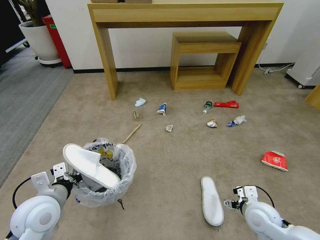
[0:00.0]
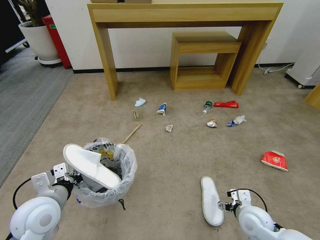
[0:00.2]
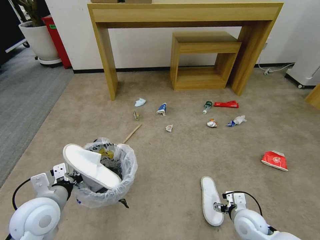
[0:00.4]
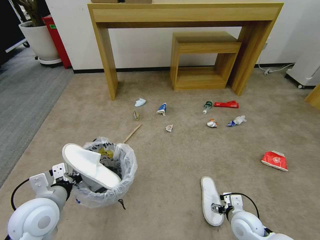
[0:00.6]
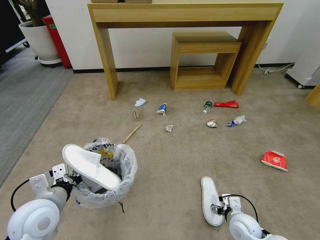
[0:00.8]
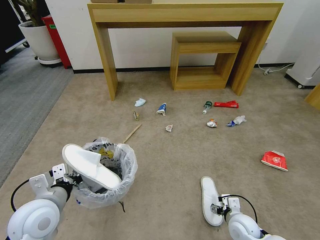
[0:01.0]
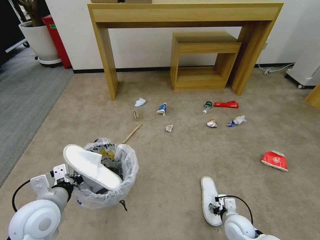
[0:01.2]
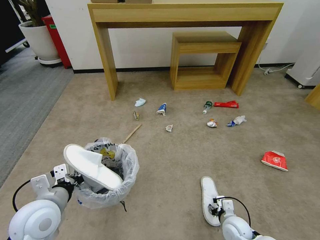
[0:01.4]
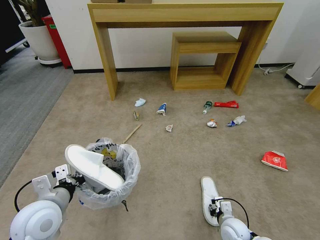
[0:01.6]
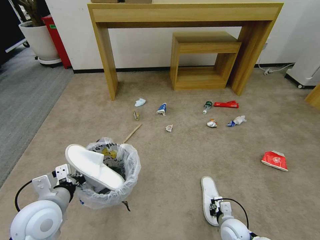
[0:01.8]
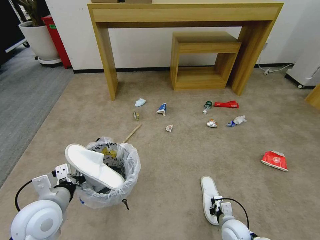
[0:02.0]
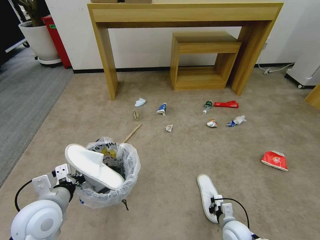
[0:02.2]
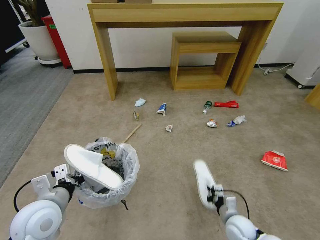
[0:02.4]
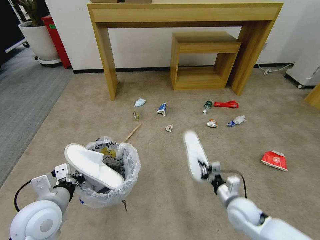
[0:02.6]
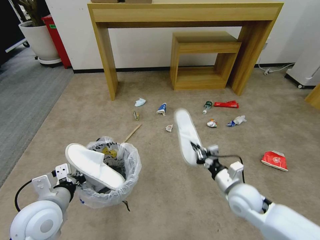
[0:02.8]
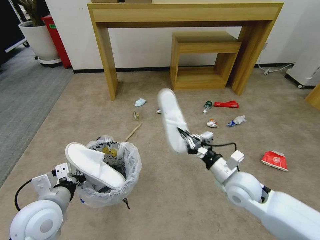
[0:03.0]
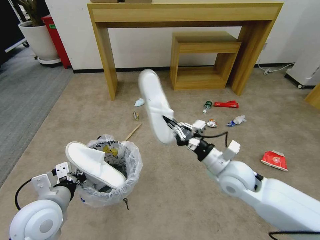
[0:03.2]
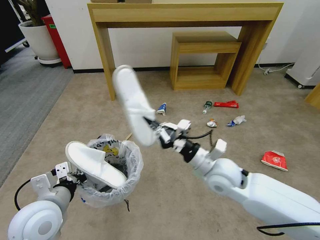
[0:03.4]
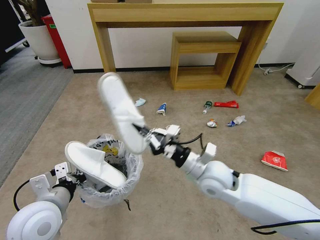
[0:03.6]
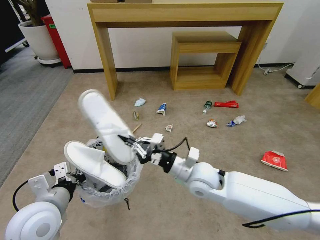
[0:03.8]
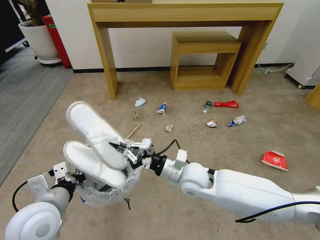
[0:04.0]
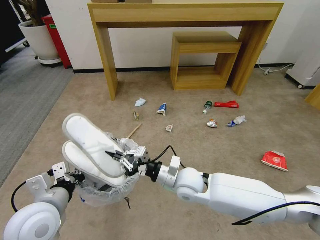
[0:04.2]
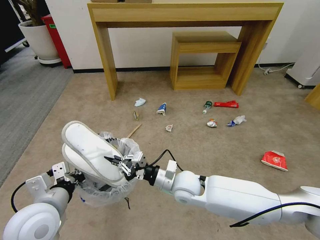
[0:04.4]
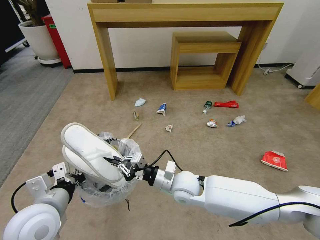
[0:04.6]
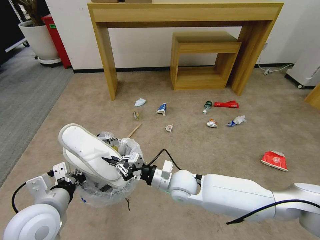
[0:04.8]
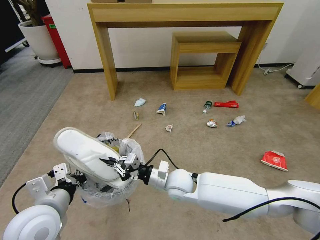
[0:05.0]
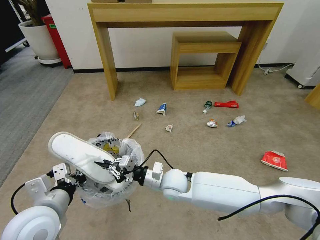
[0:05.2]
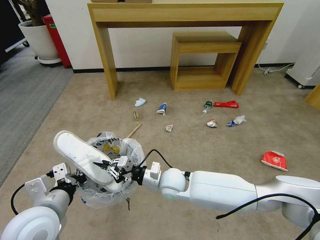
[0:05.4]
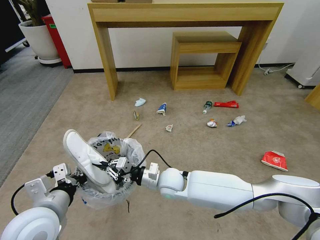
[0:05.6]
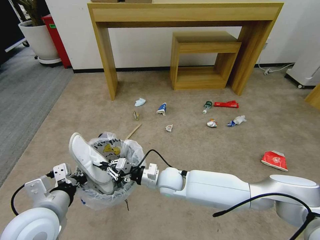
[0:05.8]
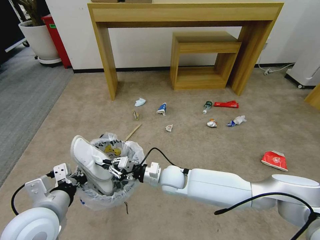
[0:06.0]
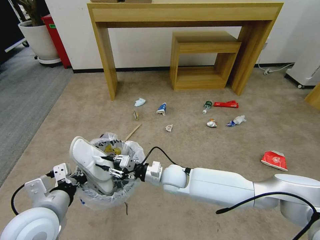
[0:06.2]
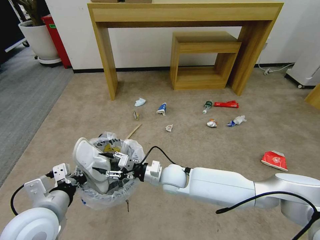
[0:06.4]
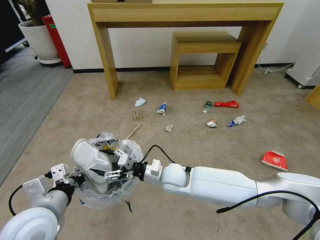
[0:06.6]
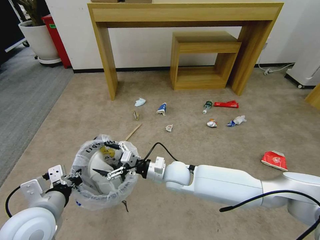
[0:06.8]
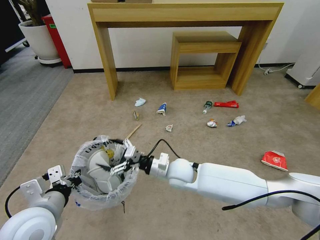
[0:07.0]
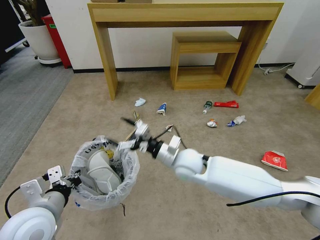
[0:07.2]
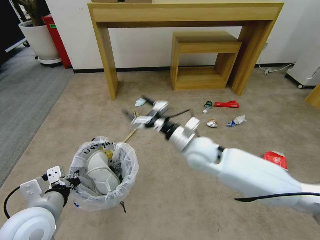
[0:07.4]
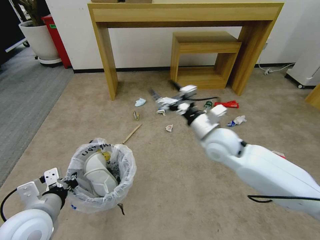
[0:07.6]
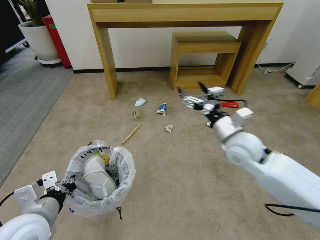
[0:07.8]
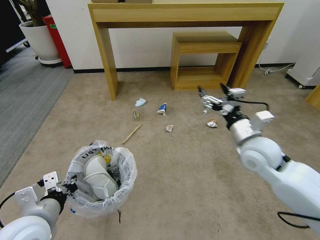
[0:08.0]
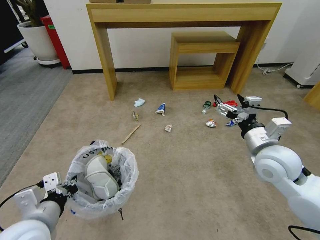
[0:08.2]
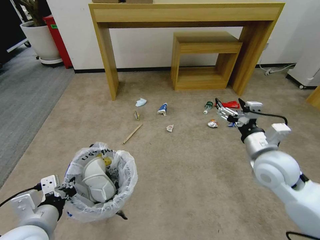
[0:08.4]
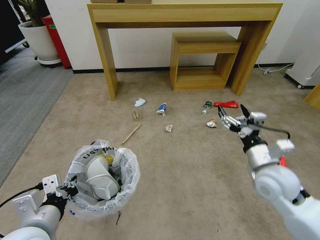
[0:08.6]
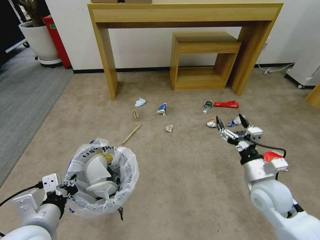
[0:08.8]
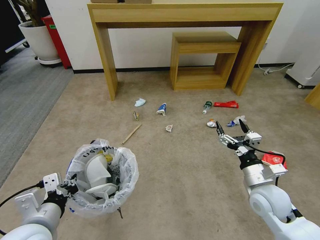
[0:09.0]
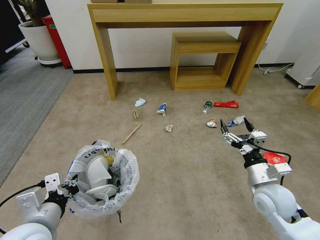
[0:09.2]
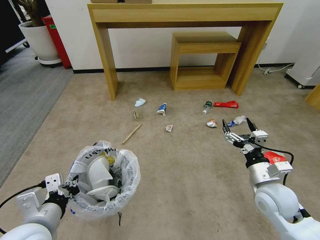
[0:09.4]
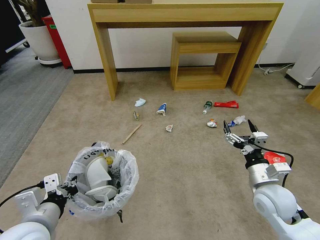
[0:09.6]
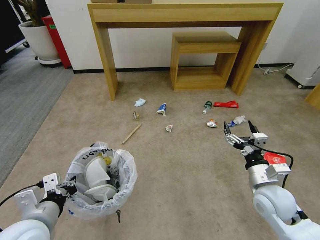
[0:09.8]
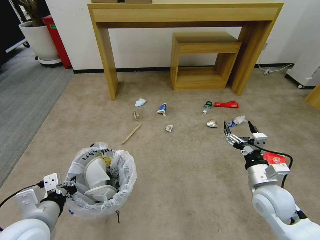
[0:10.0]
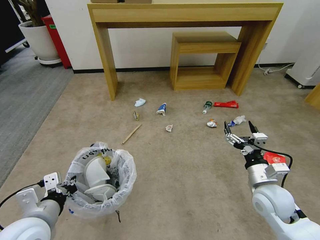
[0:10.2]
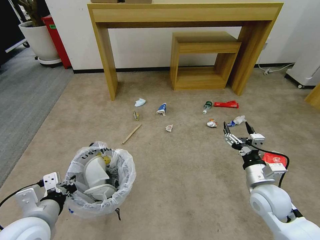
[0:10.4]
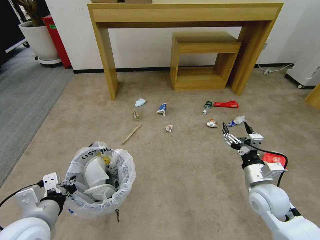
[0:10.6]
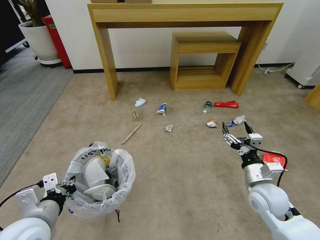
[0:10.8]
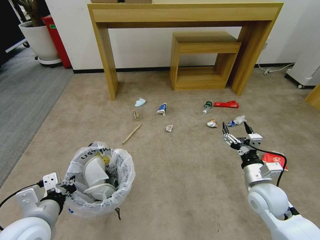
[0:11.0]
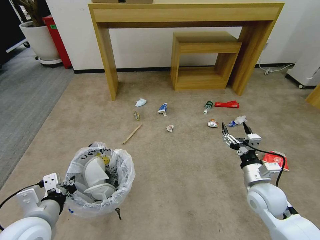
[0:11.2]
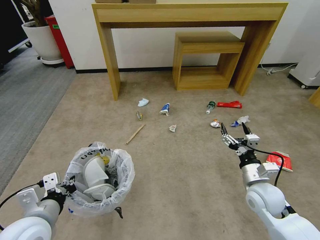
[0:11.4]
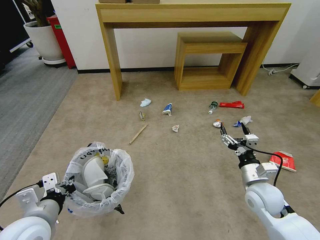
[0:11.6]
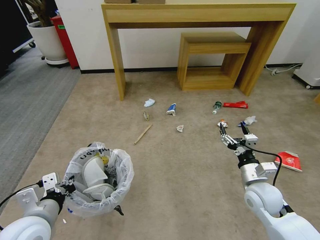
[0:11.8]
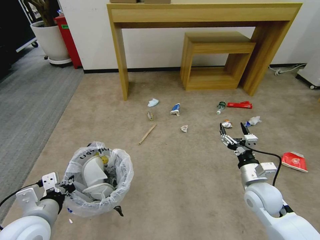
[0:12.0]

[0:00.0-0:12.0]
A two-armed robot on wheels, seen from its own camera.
Task of the whole recording: Pick up the trash bin and place the garbage on the floor into it.
0:00.0 to 0:01.6: The right gripper is displaced downward by about 15 cm, and closes.
0:01.6 to 0:03.0: The right gripper moves upward, approximately 20 cm, and closes.
0:03.0 to 0:04.4: The right gripper goes some 15 cm to the left.
0:04.4 to 0:06.0: The right gripper shifts by about 5 cm.
0:06.0 to 0:07.6: The right gripper is displaced upward and to the right by roughly 25 cm, and opens up.
0:07.6 to 0:09.0: The right gripper moves to the right, backward and downward, approximately 20 cm.
0:09.0 to 0:10.4: There are only small adjustments of the grippers.

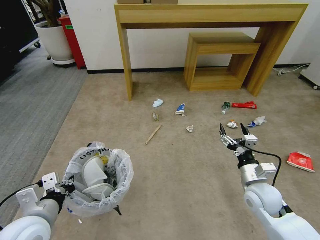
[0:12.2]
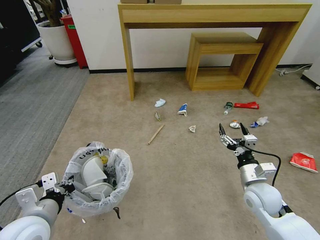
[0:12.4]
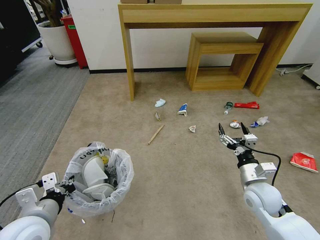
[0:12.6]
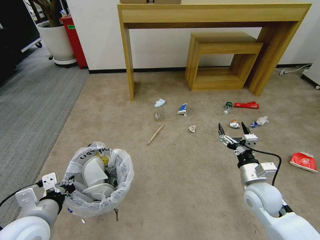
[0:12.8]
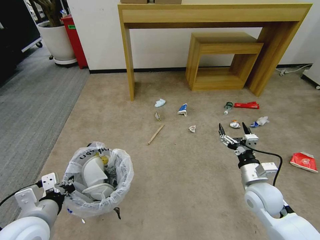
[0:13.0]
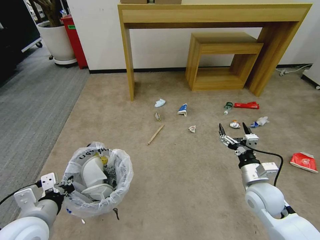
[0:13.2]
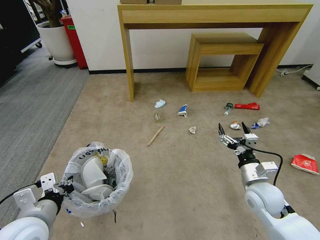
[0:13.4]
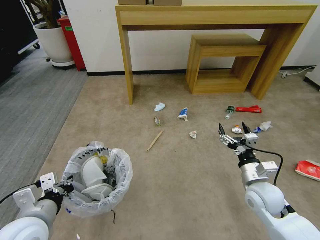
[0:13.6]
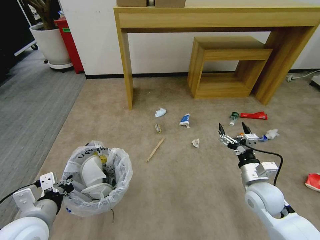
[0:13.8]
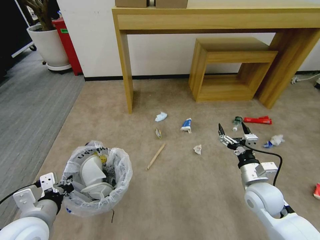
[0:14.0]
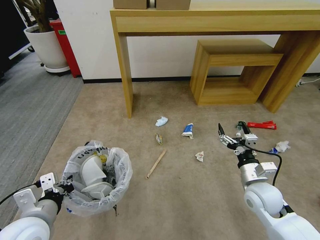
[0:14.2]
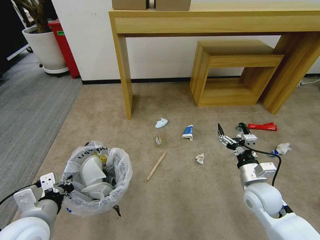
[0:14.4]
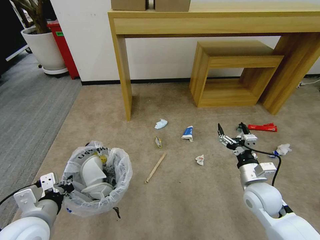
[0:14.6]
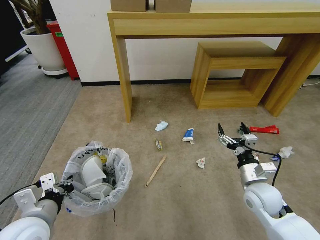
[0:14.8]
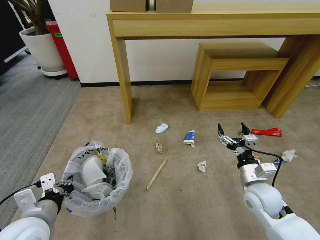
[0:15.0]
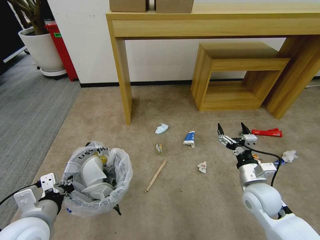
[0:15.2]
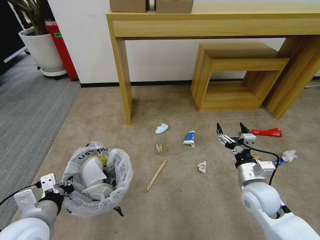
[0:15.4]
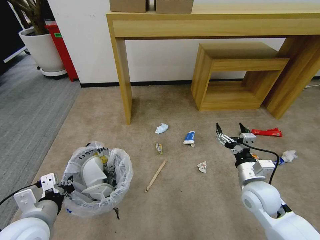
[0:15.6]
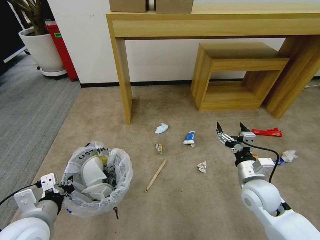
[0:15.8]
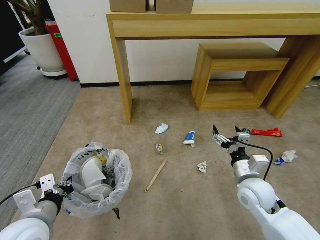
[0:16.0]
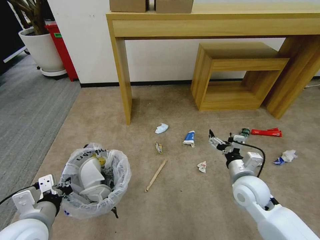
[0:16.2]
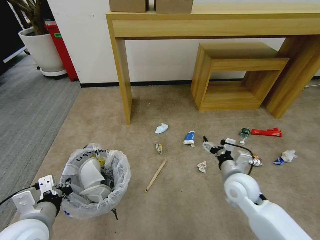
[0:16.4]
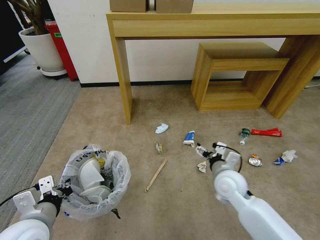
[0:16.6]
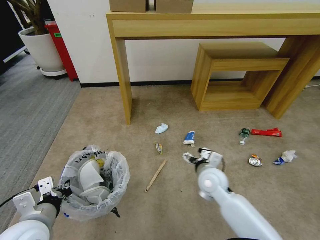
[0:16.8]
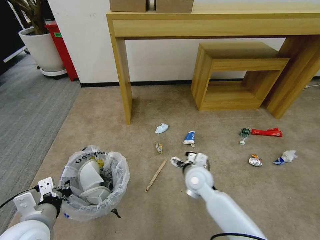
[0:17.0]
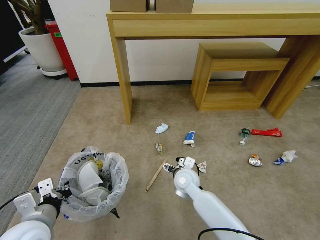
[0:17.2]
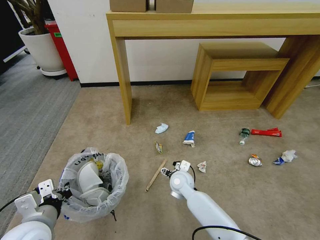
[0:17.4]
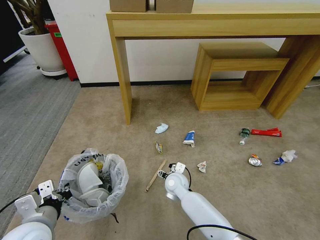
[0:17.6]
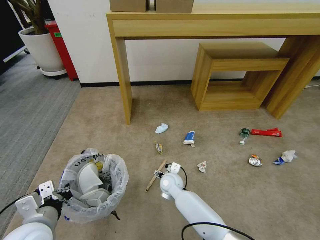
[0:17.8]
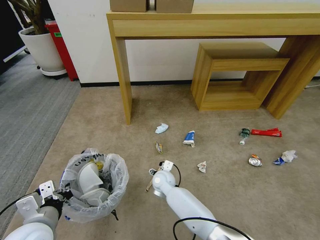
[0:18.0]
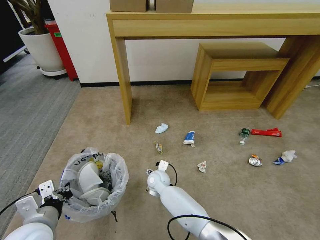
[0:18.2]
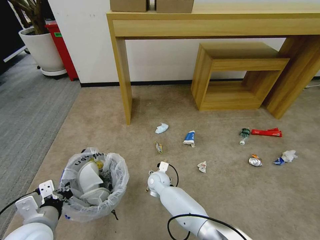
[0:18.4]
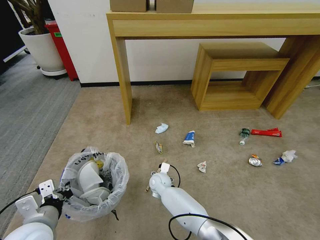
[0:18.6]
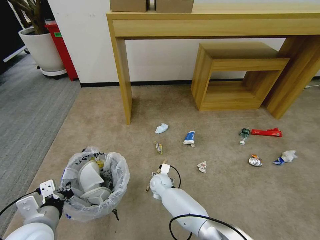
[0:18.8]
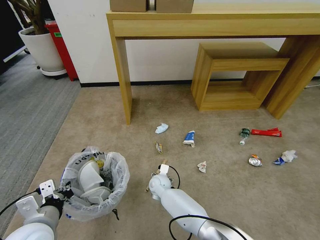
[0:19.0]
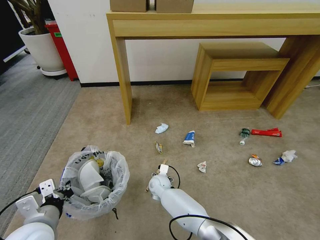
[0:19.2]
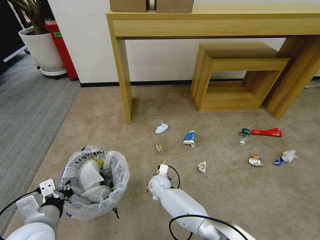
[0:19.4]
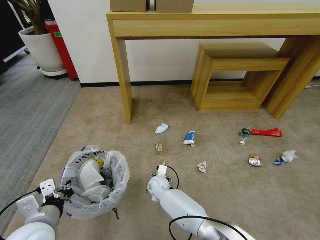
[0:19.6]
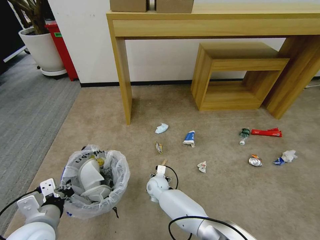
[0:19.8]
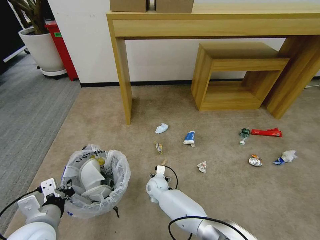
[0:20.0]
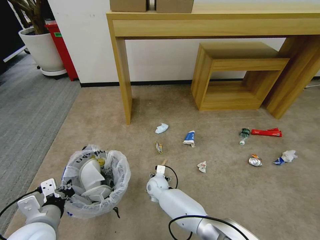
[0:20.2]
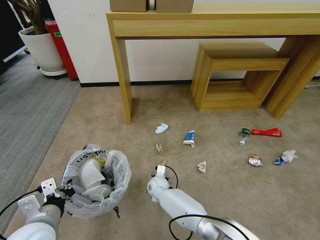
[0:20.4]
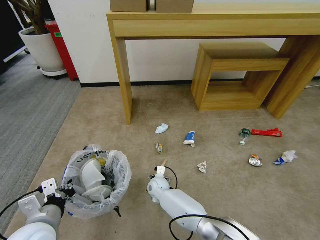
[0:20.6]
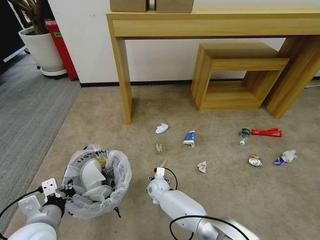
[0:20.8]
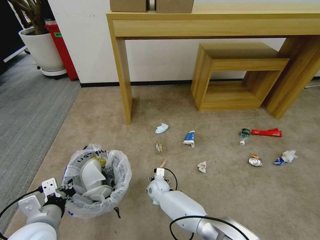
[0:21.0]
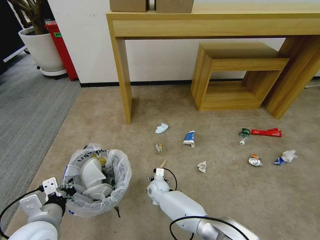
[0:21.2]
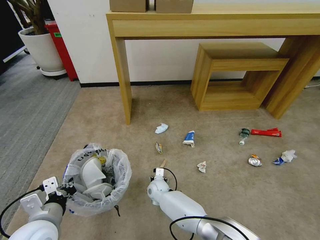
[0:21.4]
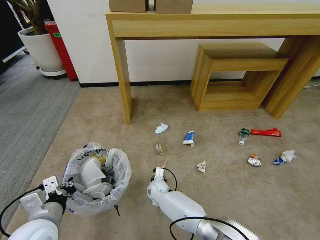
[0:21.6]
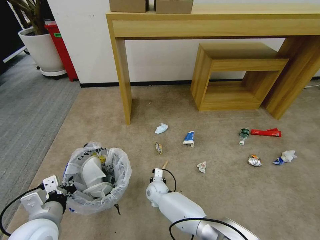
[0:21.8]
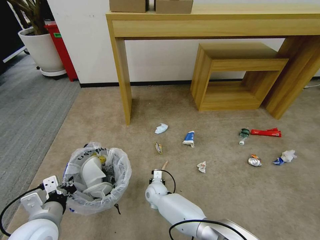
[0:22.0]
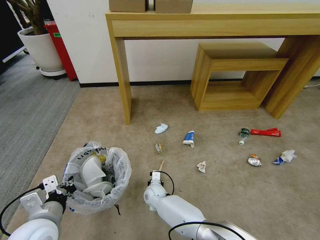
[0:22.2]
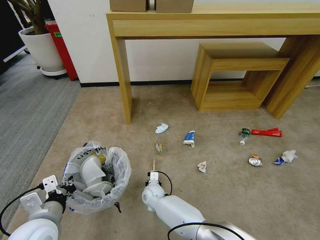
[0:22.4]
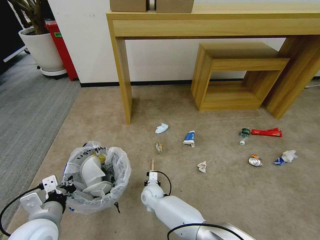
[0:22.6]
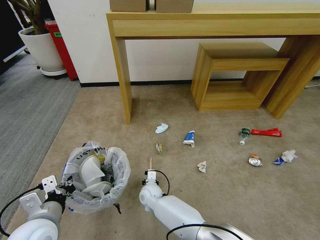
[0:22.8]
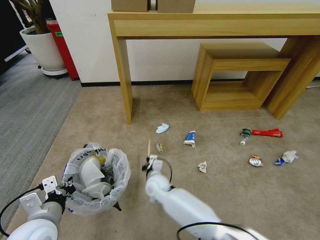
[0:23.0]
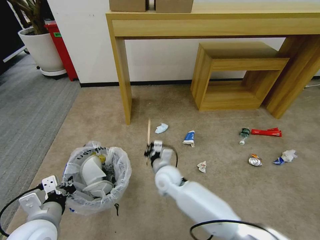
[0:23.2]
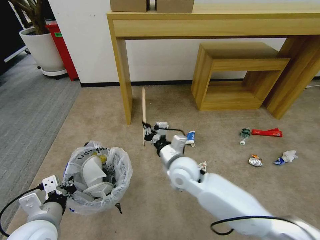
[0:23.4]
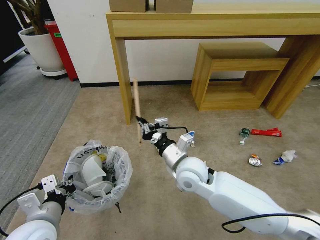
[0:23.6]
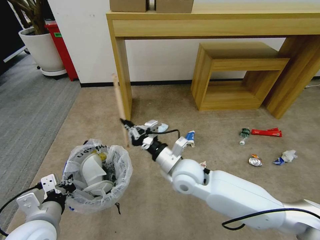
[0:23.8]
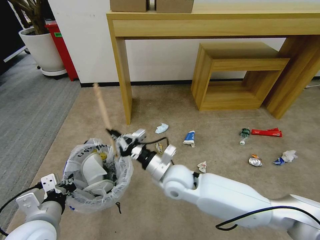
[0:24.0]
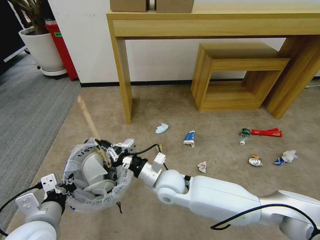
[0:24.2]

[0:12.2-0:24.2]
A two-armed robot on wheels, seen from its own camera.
Task of the whole recording: Pick up the trash bin and place the garbage on the floor into it.
0:15.2 to 0:16.6: The right gripper is displaced to the left by about 10 cm.
0:16.6 to 0:18.2: The right gripper heads to the left and downward, covering about 30 cm.
0:18.2 to 0:19.8: There are only small adjustments of the grippers.
0:19.8 to 0:21.2: The grippers make only small movements.
0:21.2 to 0:22.6: The right gripper closes its fingers.
0:22.6 to 0:24.2: The right gripper heads upward, covering roughly 20 cm.
